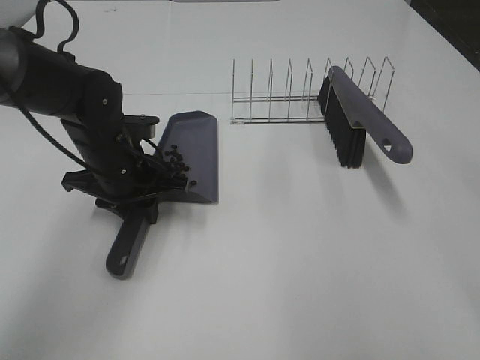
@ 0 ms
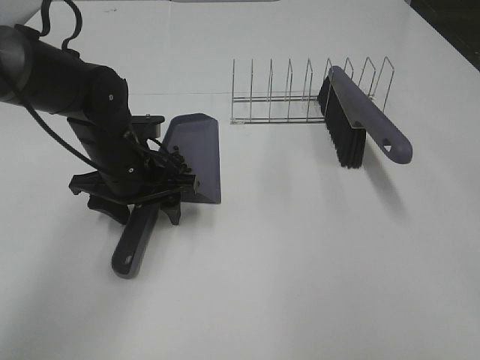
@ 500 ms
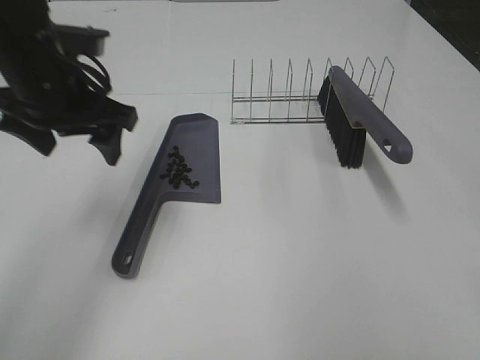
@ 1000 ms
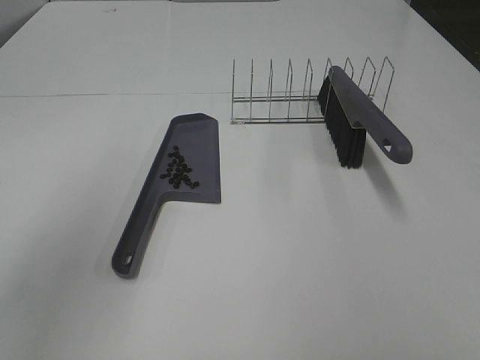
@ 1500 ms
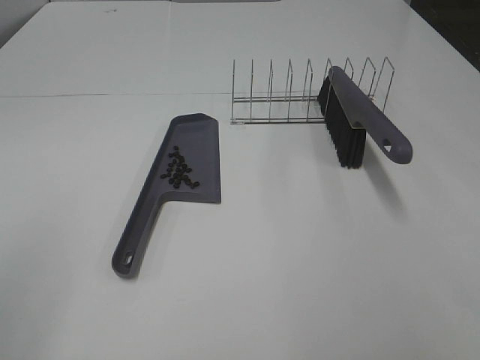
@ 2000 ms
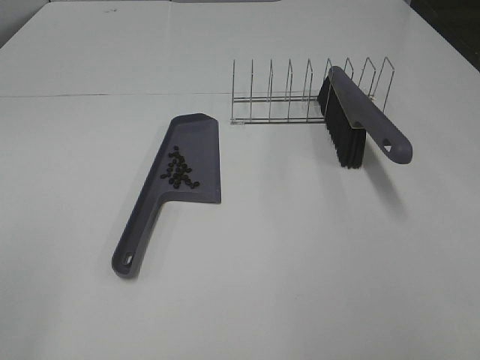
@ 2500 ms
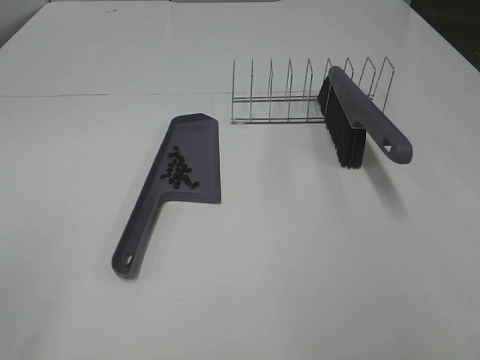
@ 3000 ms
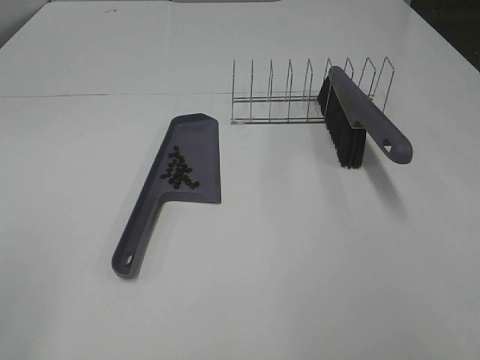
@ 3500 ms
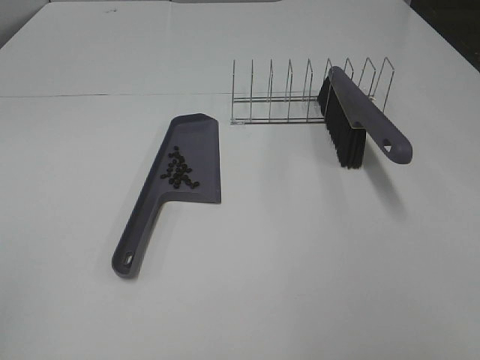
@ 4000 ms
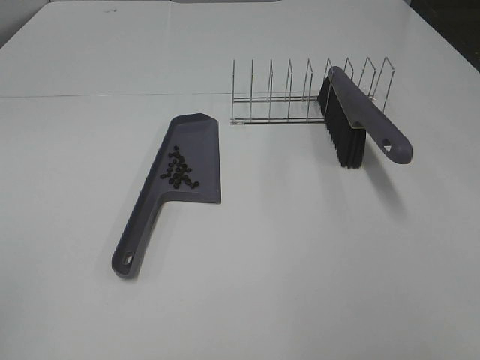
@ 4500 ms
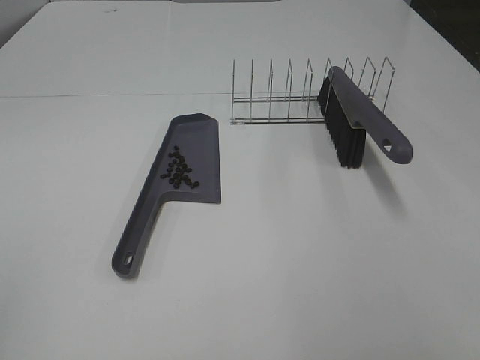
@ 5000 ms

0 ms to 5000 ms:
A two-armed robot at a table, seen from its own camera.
Task of the whole recording: Sweep Coffee Bean.
0 ms to 2500 ms: The left gripper is displaced backward, upward and to the left by about 40 cm, and opens up; the right gripper travels backward and downward by about 15 cm.
